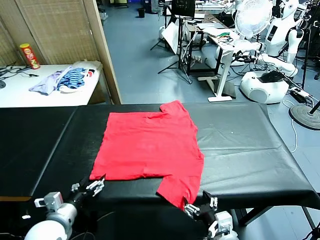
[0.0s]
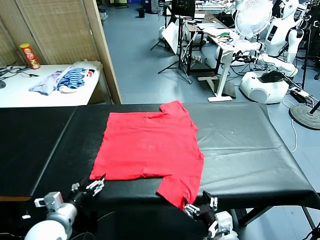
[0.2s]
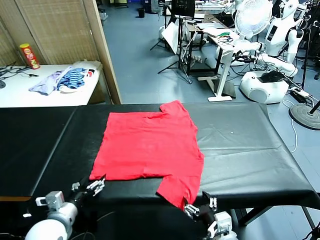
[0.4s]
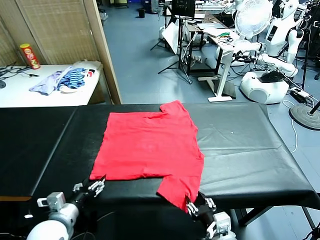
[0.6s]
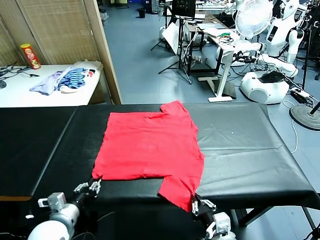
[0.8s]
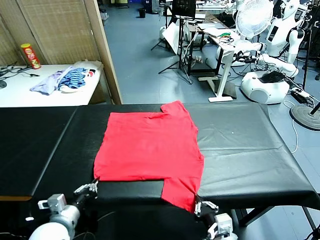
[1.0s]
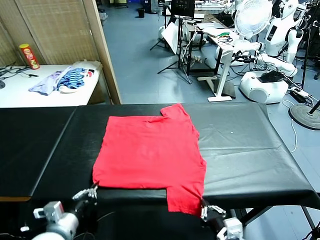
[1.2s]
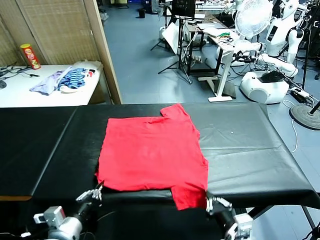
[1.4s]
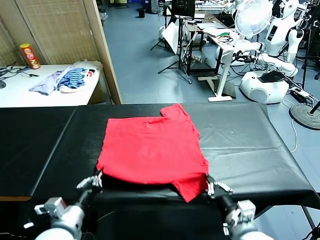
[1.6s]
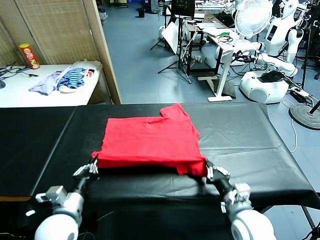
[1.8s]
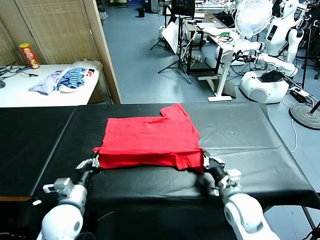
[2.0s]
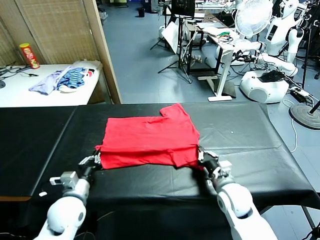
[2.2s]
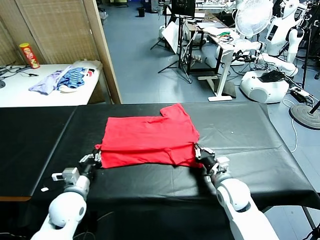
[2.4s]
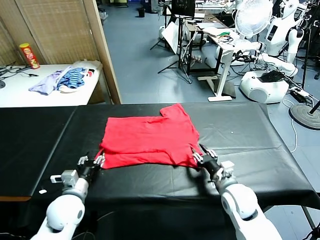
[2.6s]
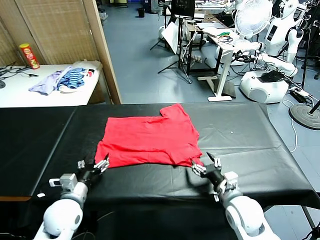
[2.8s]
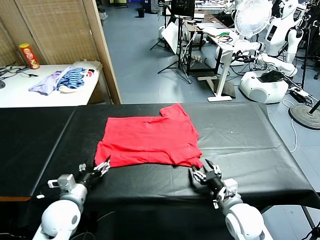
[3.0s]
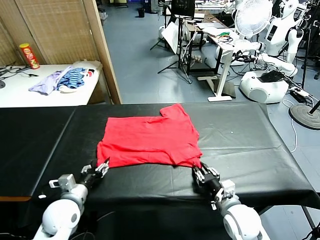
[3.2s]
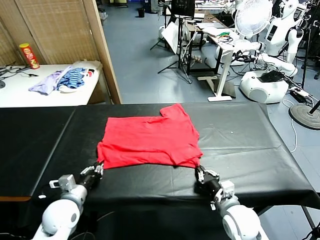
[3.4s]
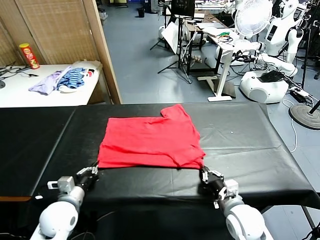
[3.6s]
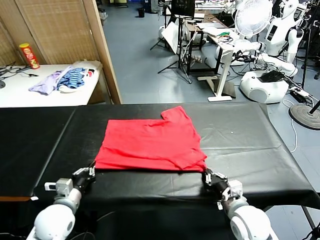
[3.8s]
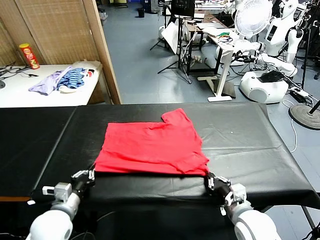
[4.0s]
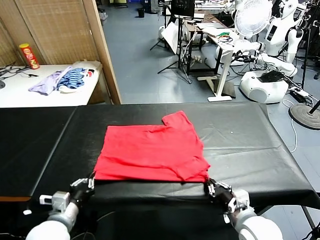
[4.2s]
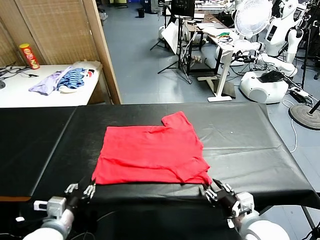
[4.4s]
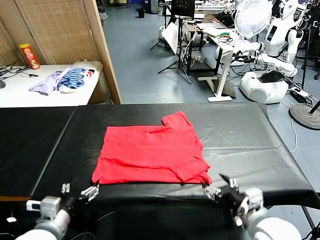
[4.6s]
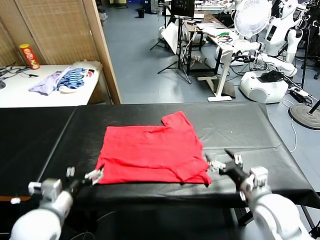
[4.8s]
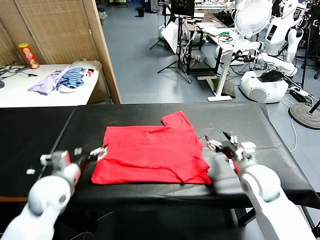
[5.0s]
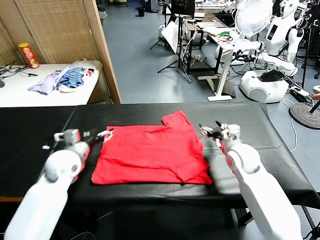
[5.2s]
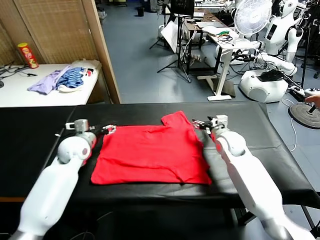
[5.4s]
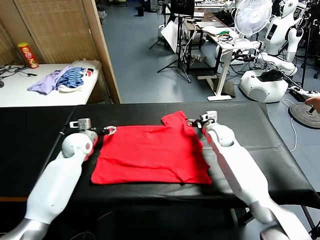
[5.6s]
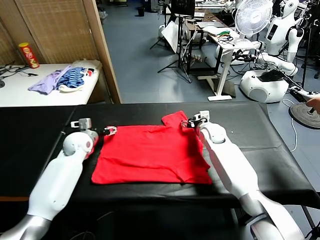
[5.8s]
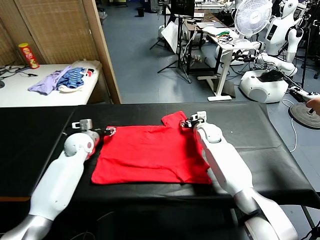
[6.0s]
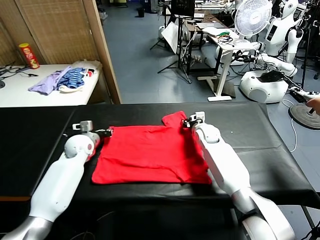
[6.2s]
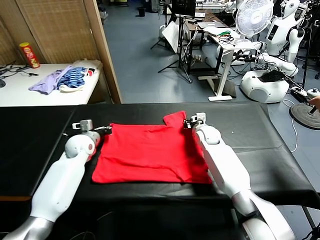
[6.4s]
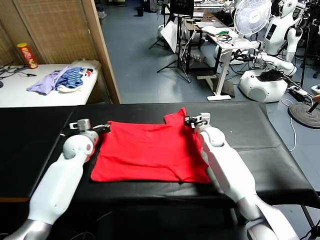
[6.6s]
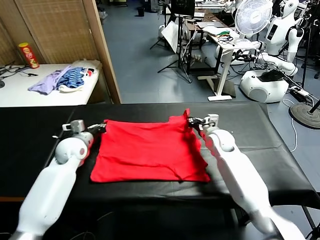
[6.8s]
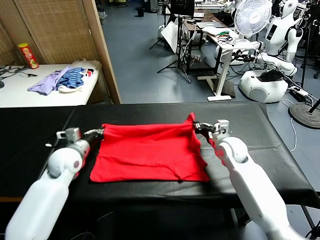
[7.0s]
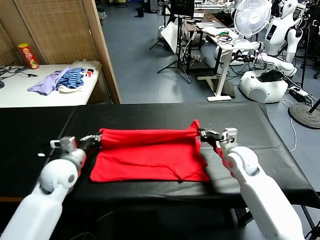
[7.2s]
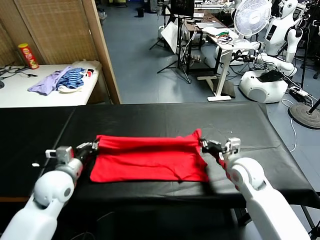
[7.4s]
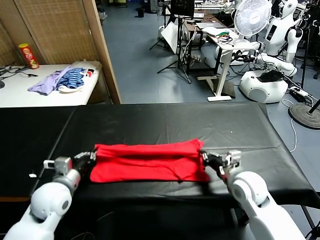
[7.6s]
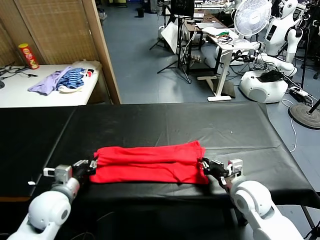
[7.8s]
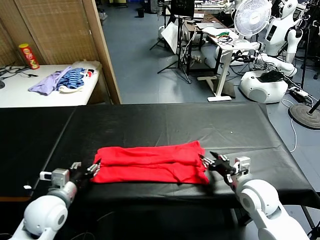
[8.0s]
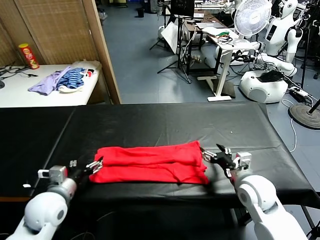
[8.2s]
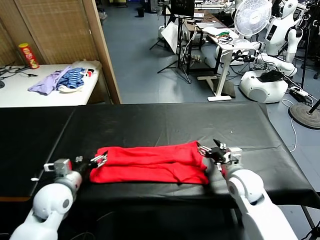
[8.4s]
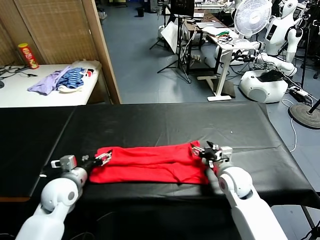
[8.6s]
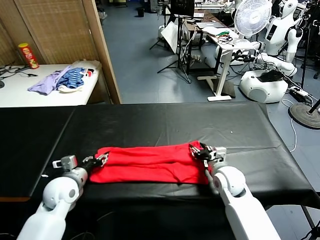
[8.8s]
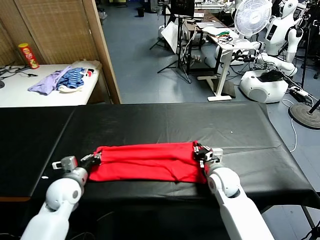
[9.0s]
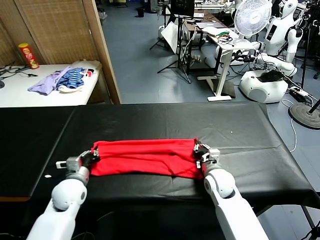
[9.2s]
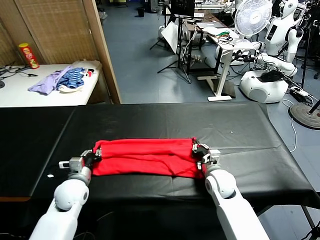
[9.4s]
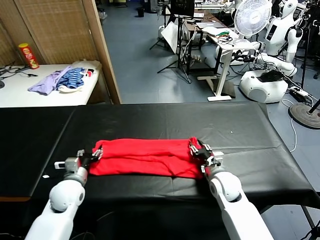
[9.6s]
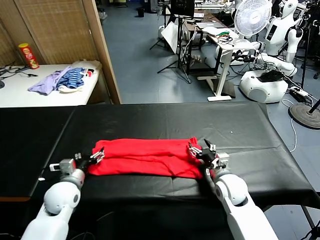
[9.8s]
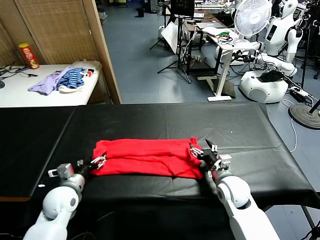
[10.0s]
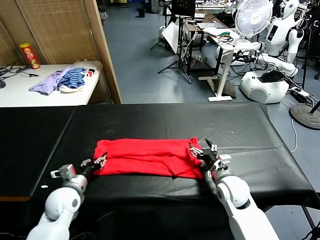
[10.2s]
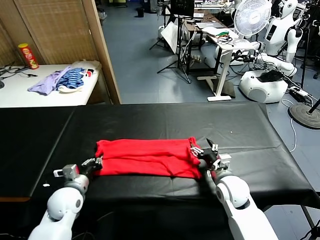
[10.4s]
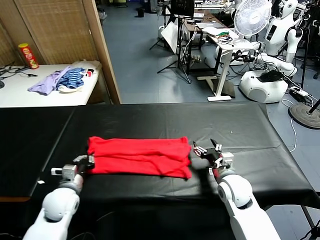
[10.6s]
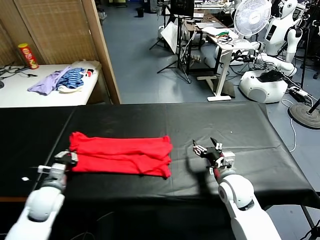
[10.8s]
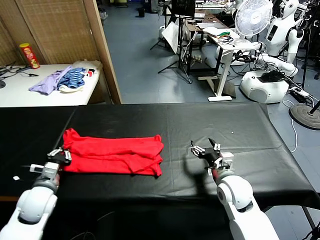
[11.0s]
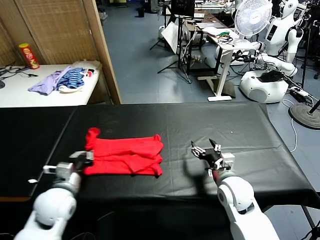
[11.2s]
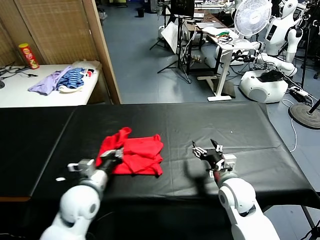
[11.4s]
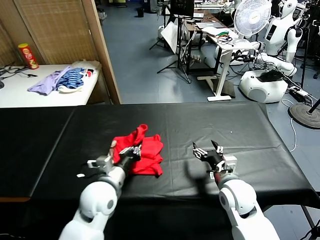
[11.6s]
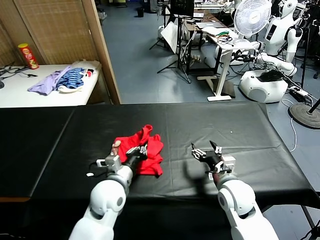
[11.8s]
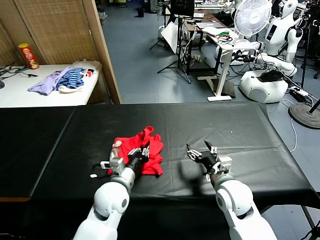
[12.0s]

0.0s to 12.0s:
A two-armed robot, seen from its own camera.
Task of the whole recording: fold and organize the clothes.
Step, 0.0s to 0.8s: use both grippers simultaneously to clamp the lower edge of the clothing fabric.
Step, 1.0s to 2.4s: use both grippers to drag the lower edge of the fabric forward and fold it over the upper edge.
Step, 2.8s to 4.4s: Drag the clothes downward with both gripper.
Step, 4.6s to 6.4s: use both grippers simultaneously to clamp the upper edge of the clothing fabric.
Step, 6.6s to 7.8s: use both grippers to drag the upper edge of the fabric backward and fold it over the lower edge.
Step, 8.0s to 10.4s: use the left gripper to clamp the left edge of the fabric.
1.6s to 3.0s: The left gripper is displaced forward by about 5 cm, and opens up. The right gripper goes forward and returns, roughly 5 cm each way, and opens, then closes once more.
3.0s to 4.4s: The left gripper moves backward and upward, some 10 cm, and closes and opens again. Meanwhile the right gripper goes some 10 cm upward, and opens.
4.4s to 6.0s: Both grippers move forward, about 35 cm. The right gripper closes. Meanwhile the left gripper closes.
6.0s to 7.6s: Both grippers move backward, approximately 25 cm. The left gripper closes up.
7.6s to 9.0s: The left gripper is displaced downward and forward by approximately 10 cm, and opens and closes again; the right gripper is displaced forward, downward and to the left by some 10 cm, and opens, then closes again.
9.0s to 10.4s: The right gripper shifts by roughly 5 cm, and opens up, while the left gripper opens and closes again.
10.4s to 12.0s: The left gripper shifts about 15 cm to the right.

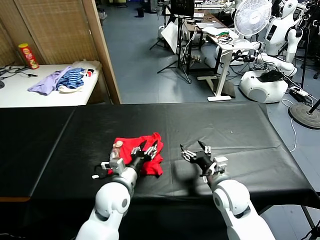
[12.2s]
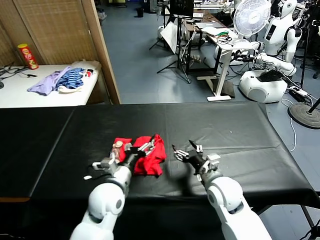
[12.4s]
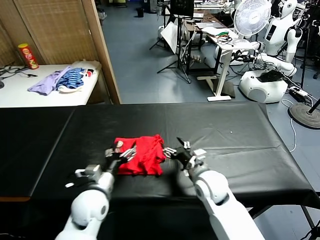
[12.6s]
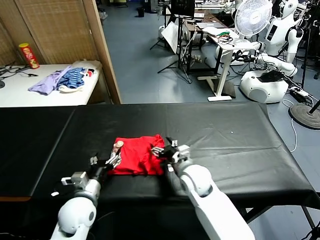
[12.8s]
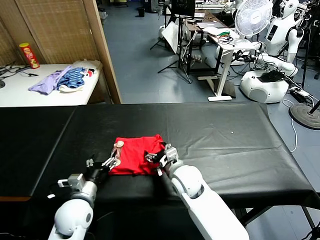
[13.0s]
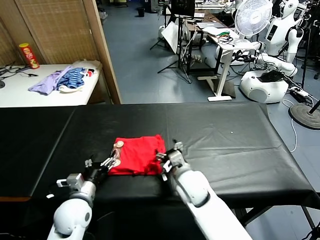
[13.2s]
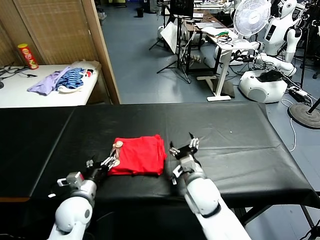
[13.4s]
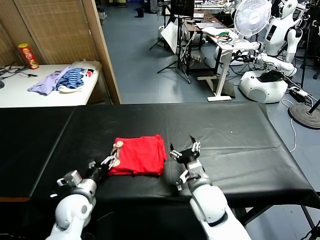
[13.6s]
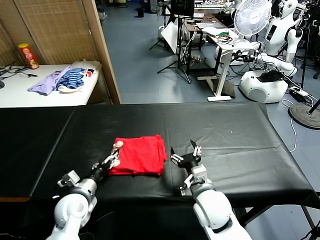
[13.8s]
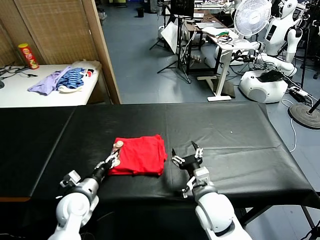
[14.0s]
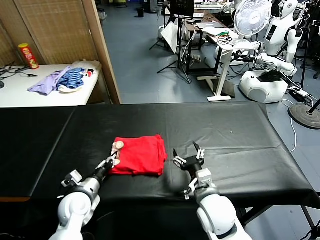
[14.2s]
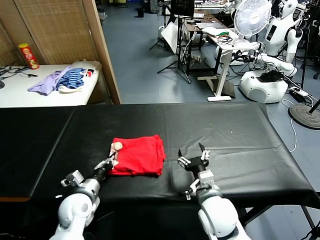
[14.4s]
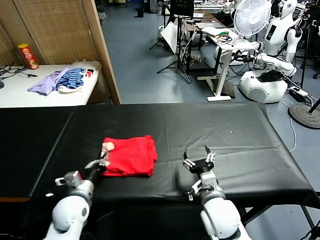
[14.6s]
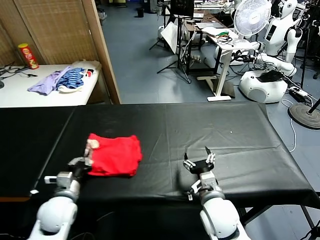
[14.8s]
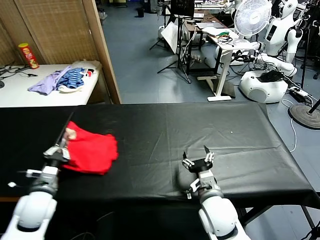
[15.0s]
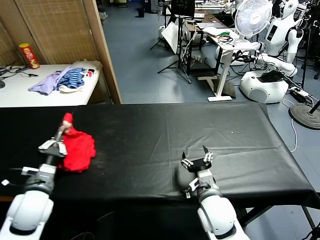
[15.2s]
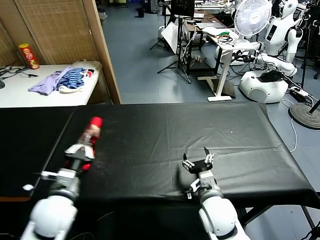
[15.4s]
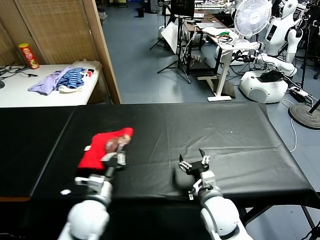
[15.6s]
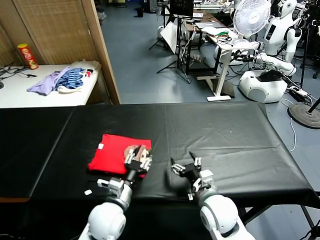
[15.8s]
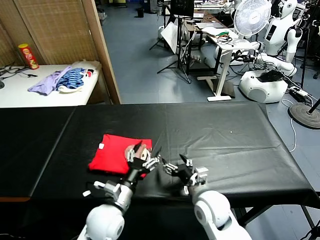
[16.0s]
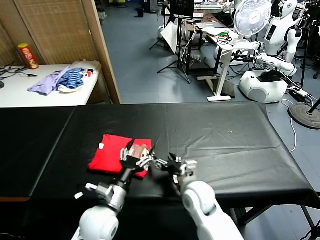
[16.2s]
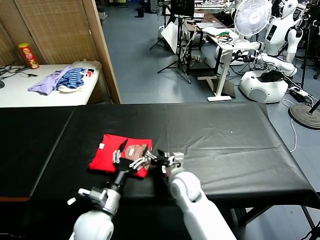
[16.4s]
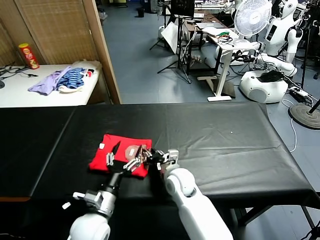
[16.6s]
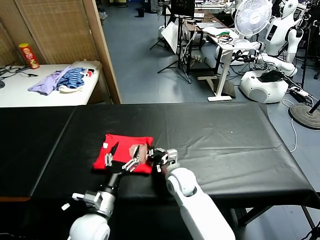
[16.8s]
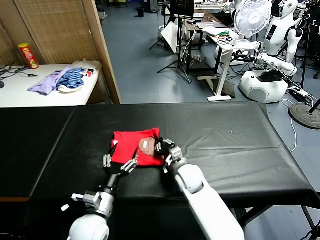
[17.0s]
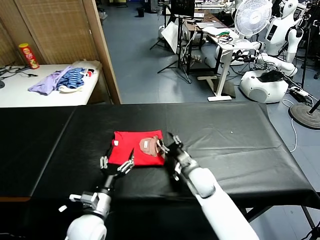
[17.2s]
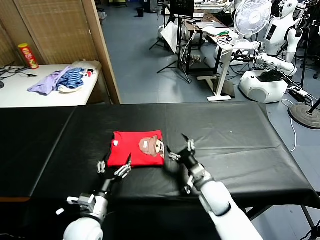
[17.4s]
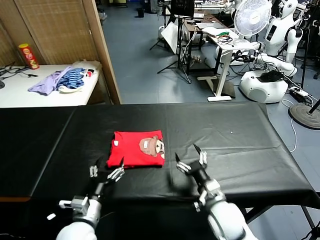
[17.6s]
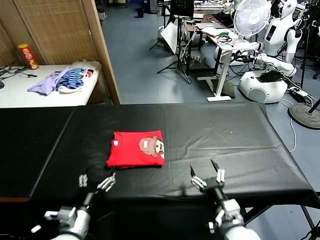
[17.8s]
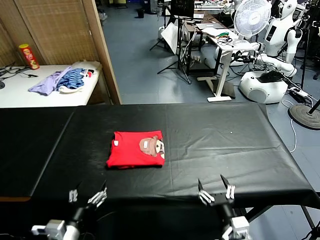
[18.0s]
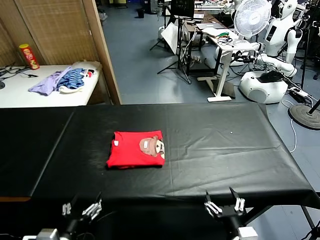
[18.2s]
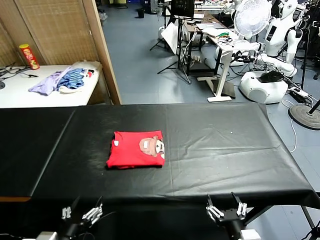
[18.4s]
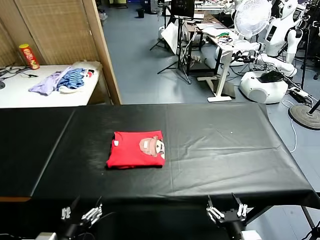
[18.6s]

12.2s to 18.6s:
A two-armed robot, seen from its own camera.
Task of the whole recording: fold and organize the clothes.
Step, 12.4s to 15.8s: Flip the folded clothes over with left gripper.
Step, 16.0s to 17.0s: Drag the clothes to the center of the table.
12.2s to 13.8s: The left gripper heads to the left, covering some 15 cm. The right gripper shifts about 5 cm to the left.
13.8s to 15.4s: The left gripper goes roughly 10 cm upward, and closes up.
15.4s to 17.0s: The right gripper moves forward, to the left and downward, approximately 15 cm, and closes its fingers. The left gripper moves to the right and downward, about 10 cm, and opens its fingers.
17.0s to 18.6s: The left gripper shifts about 15 cm backward, to the left and upward. The right gripper shifts approximately 30 cm backward, and opens its fingers.
